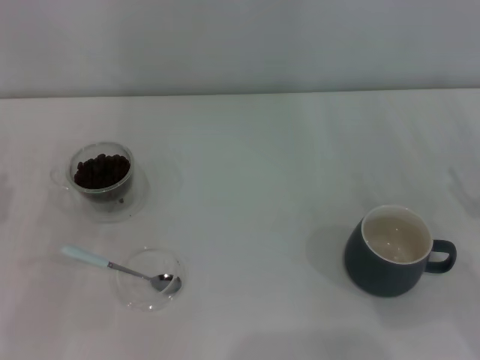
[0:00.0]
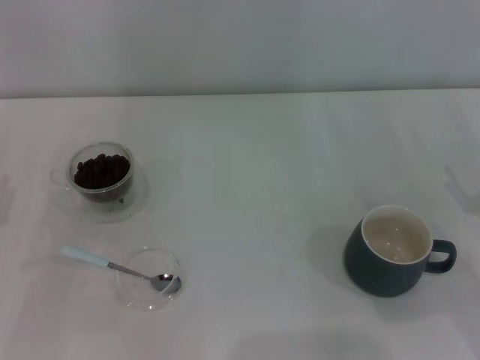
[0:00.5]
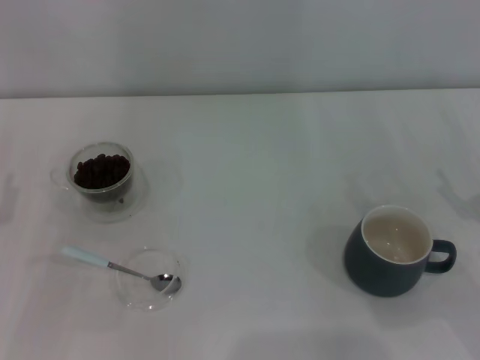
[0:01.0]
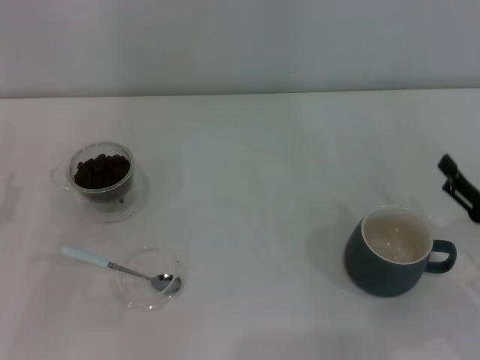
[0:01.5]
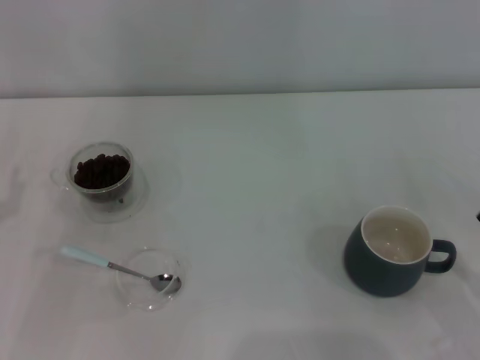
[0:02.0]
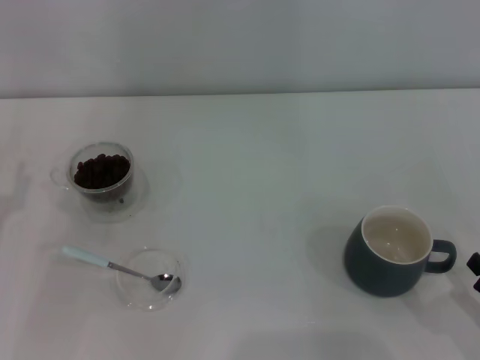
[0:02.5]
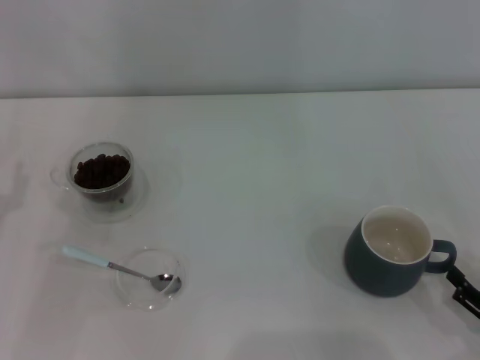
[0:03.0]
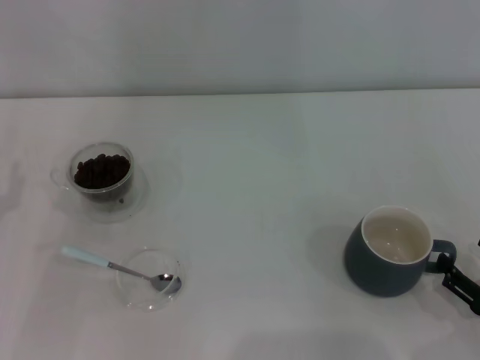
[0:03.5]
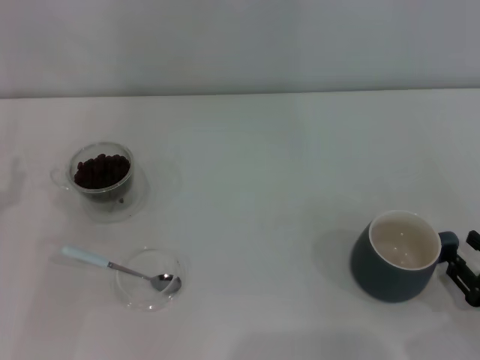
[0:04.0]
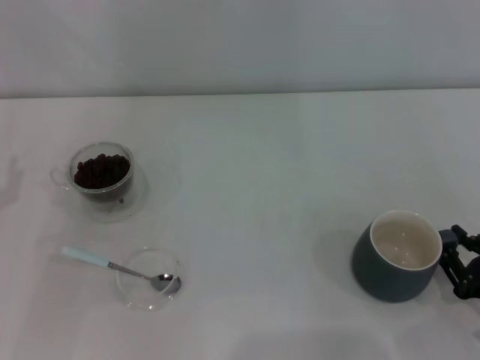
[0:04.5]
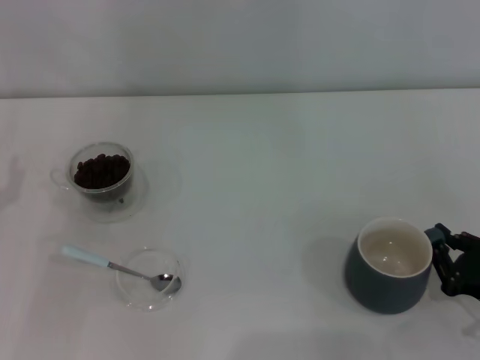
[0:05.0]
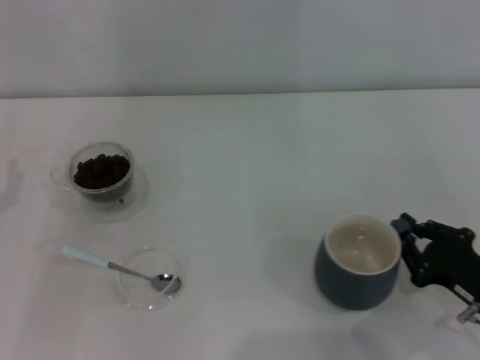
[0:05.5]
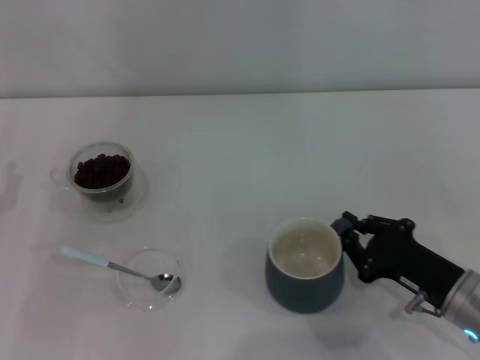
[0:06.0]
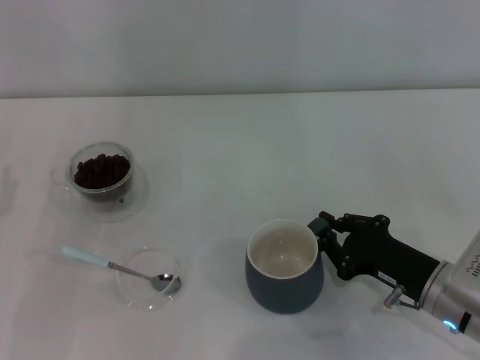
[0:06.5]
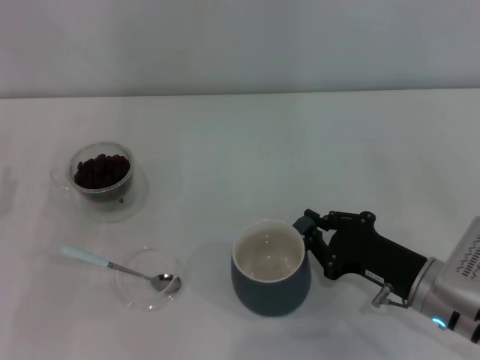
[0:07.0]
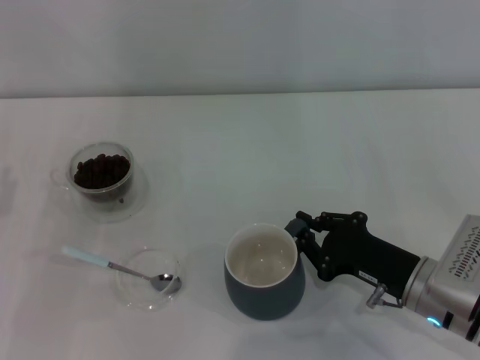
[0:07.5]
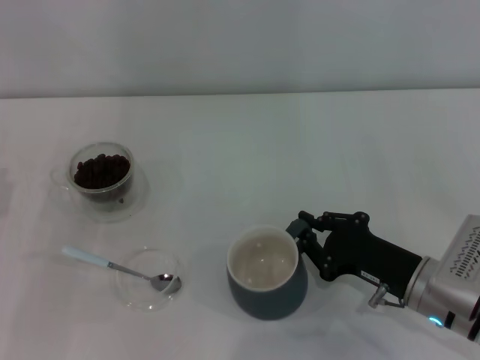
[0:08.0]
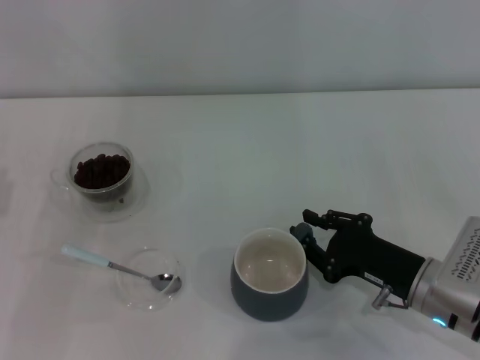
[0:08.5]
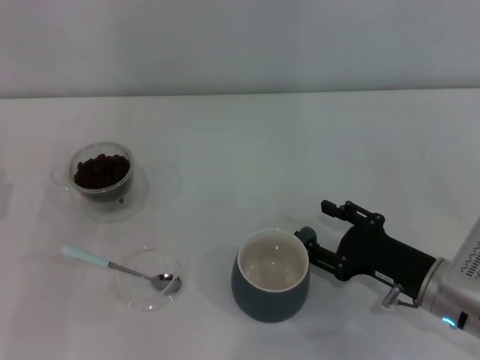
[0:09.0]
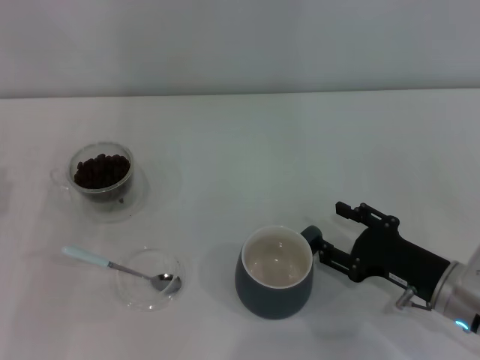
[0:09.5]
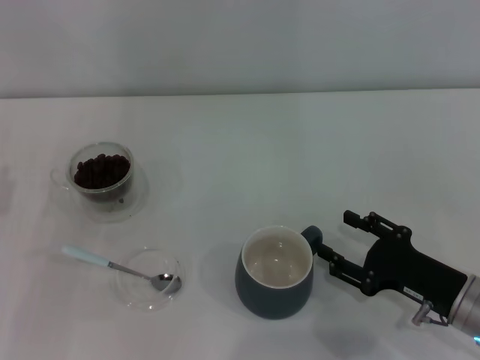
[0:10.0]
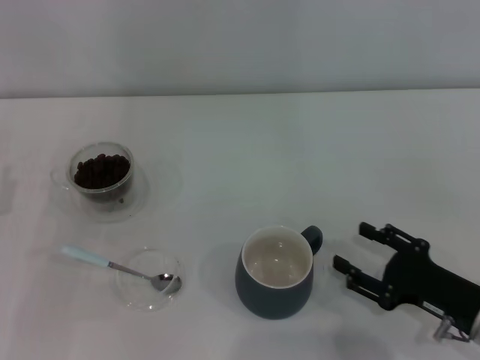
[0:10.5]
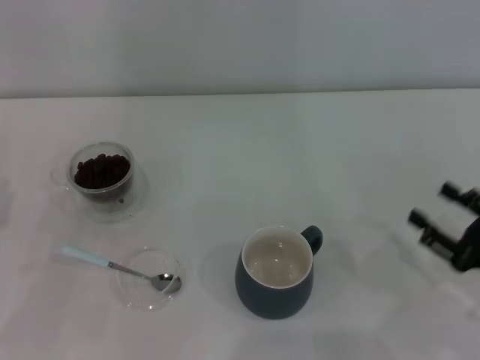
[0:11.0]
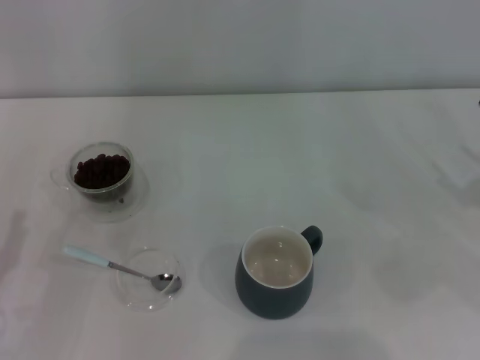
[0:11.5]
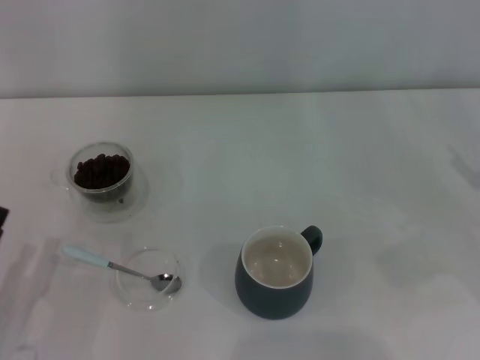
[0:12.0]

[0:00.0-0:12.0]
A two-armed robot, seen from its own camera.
Task of the whole recording: Use a blue spoon to take out the coffee beans from the glass and pour them into the gray cup.
Step, 0:00.0 to 0:10.5: Move the cup to the center of view with the left gripper.
0:02.0 to 0:04.0: There are only small adjustments of the grippers.
0:04.0 to 0:06.0: The right gripper is displaced to the left and forward by approximately 10 cm, and closes up.
0:06.0 to 0:08.0: The grippers stay close to where they were, moving slightly.
0:08.0 to 0:10.0: The right gripper opens up.
0:10.0 to 0:12.0: The left gripper heads backward and downward, covering about 10 cm. The right gripper is displaced to the right and upward by some 15 cm.

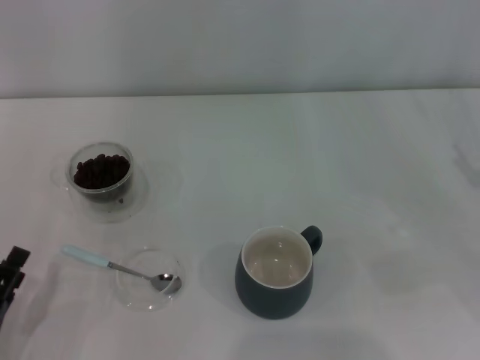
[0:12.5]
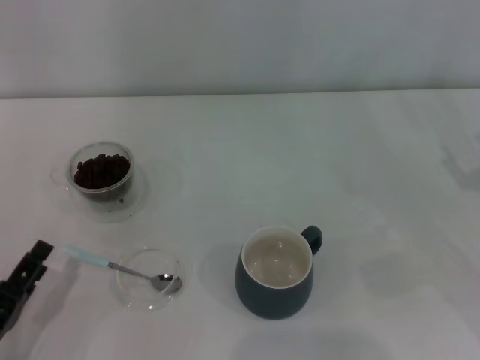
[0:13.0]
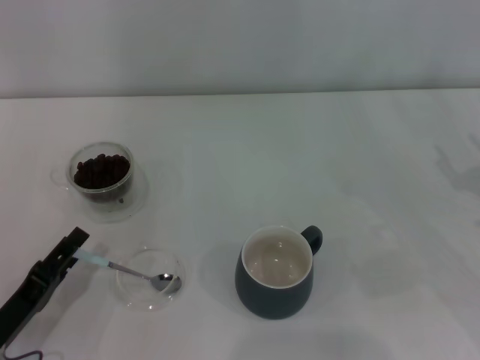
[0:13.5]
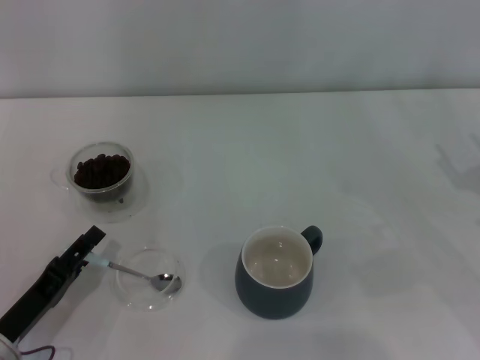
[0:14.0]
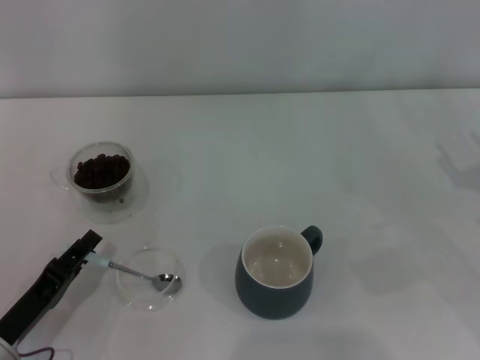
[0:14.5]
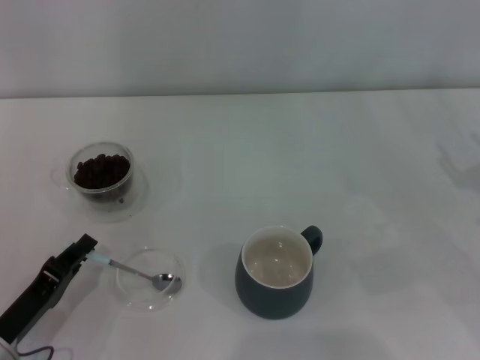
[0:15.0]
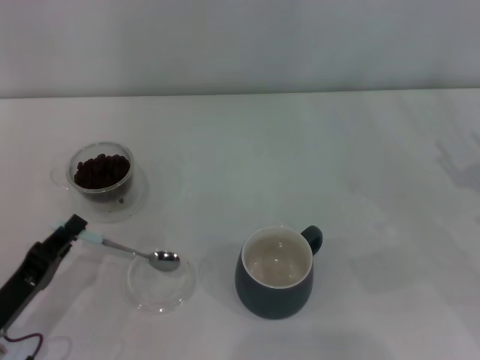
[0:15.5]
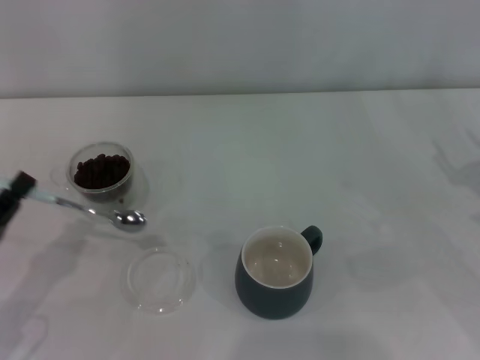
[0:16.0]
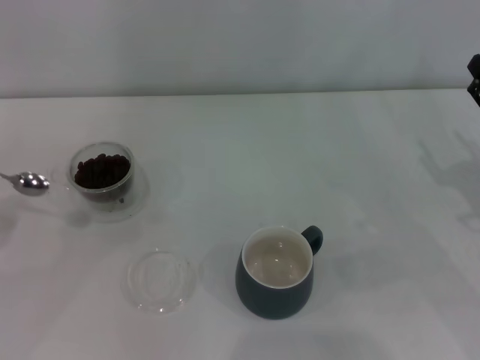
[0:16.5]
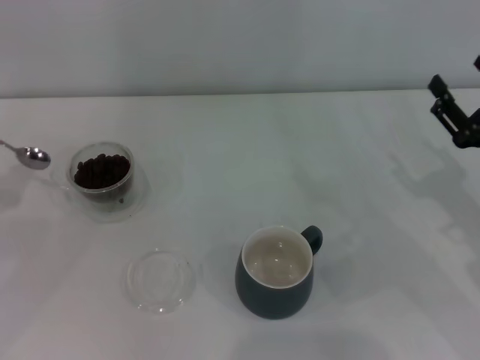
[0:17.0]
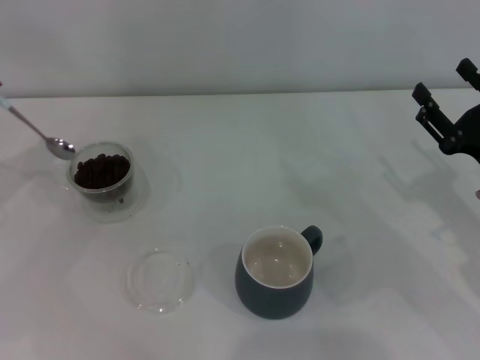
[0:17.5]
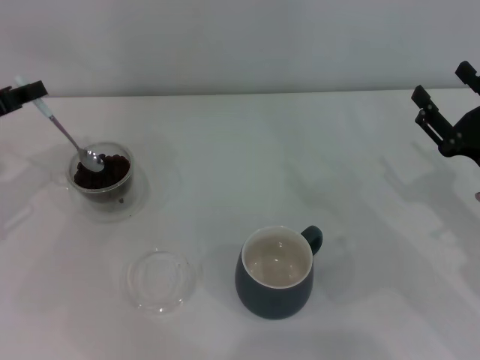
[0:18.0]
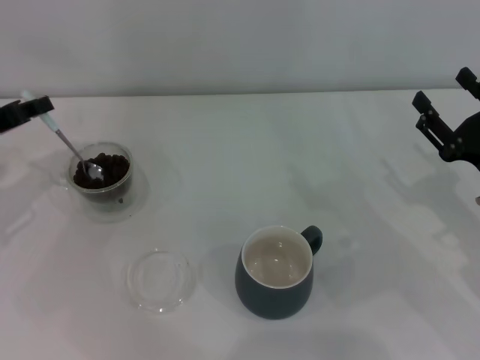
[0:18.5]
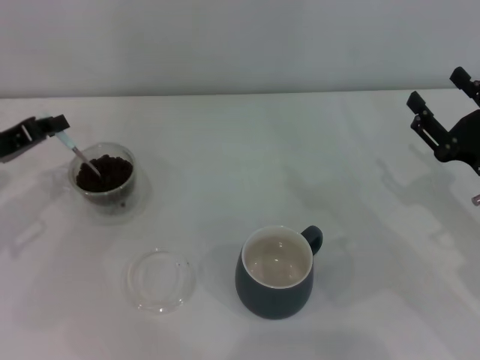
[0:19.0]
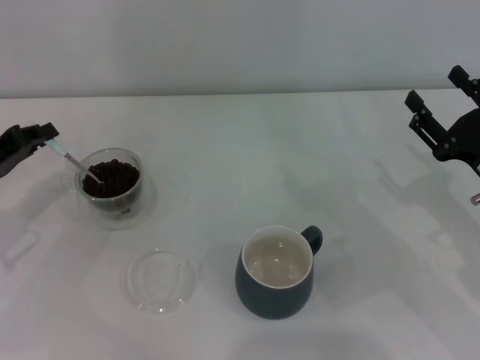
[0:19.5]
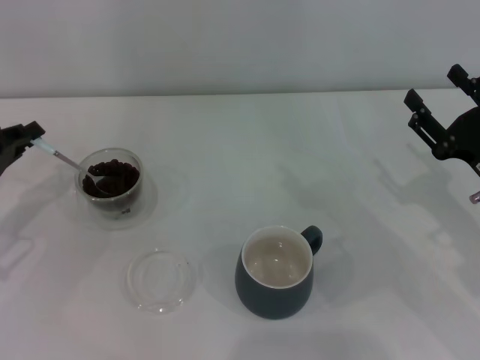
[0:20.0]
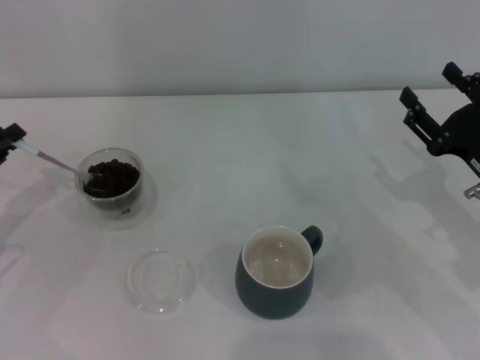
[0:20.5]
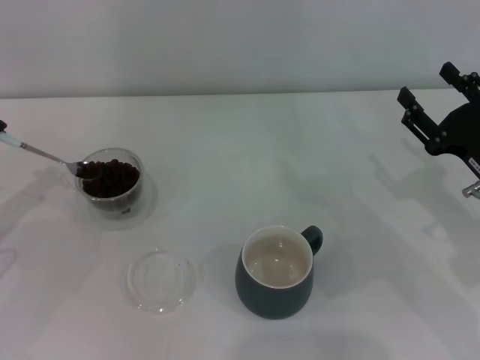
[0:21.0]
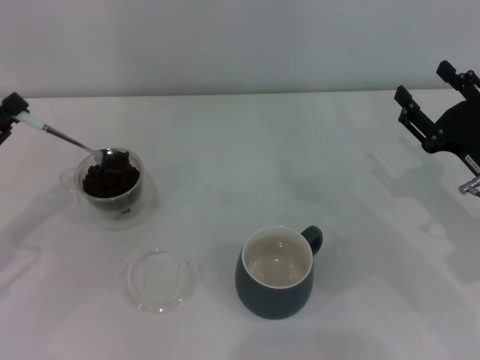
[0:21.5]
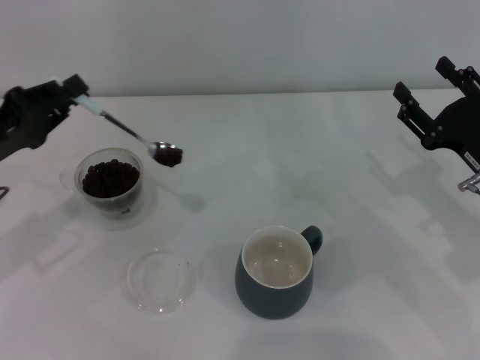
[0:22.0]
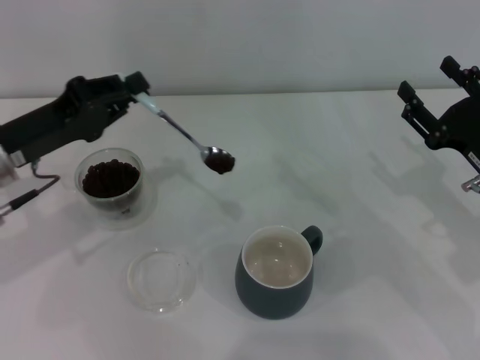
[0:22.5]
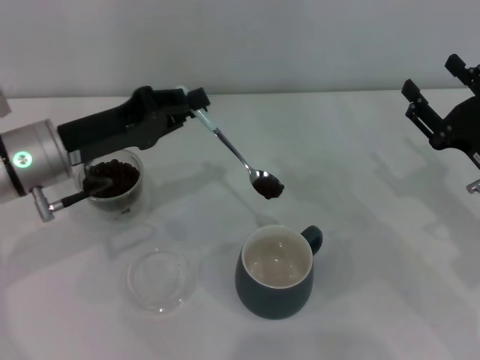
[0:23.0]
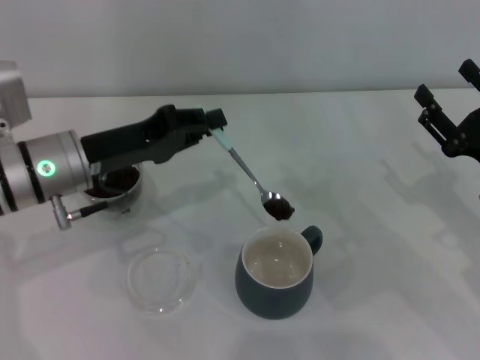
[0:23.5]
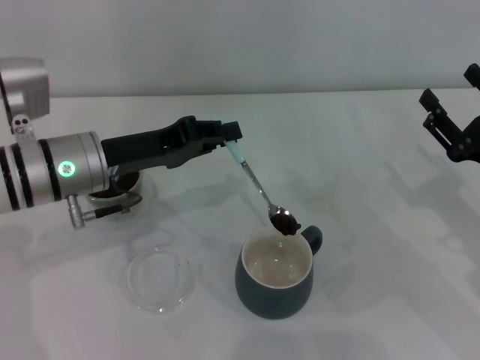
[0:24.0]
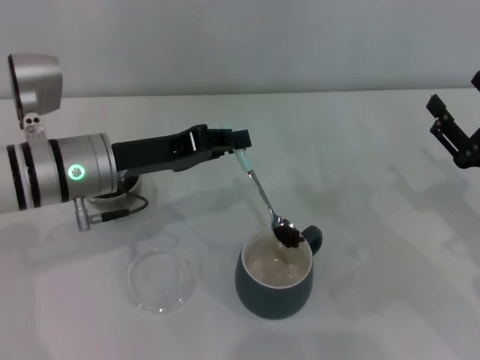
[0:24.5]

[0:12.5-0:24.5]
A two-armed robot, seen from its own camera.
Task of the whole recording: Use a blue spoon to take out the coffee beans from the glass and pour them into the gray cup.
Step, 0:12.5 to 0:15.5: Pick up the spoon with the right gripper.
0:12.5 to 0:14.5: The left gripper travels forward by roughly 5 cm.
0:14.5 to 0:16.5: The left gripper goes some 15 cm to the left and upward, and closes.
0:16.5 to 0:18.5: The left gripper is displaced forward and to the right by about 15 cm.
0:18.5 to 0:20.5: The left gripper moves backward, roughly 5 cm.
0:20.5 to 0:22.5: The left gripper is displaced to the right by approximately 10 cm.
0:22.5 to 0:24.5: The left gripper heads to the right, covering about 10 cm.

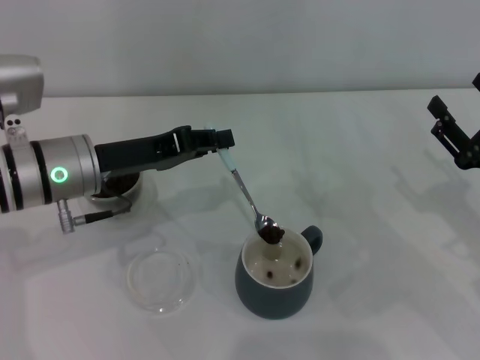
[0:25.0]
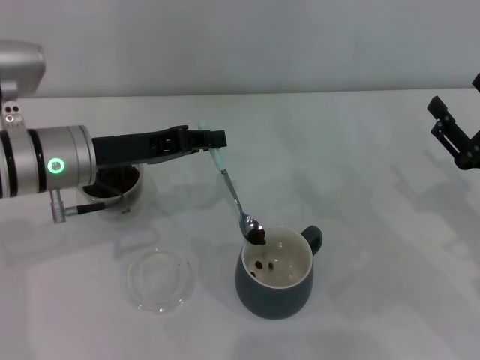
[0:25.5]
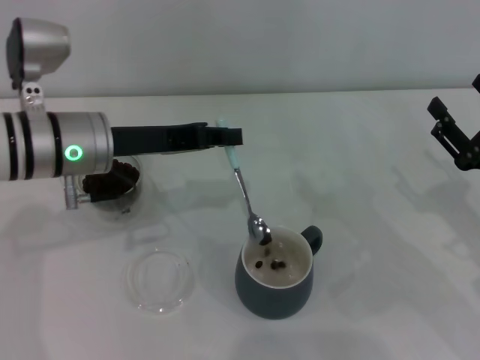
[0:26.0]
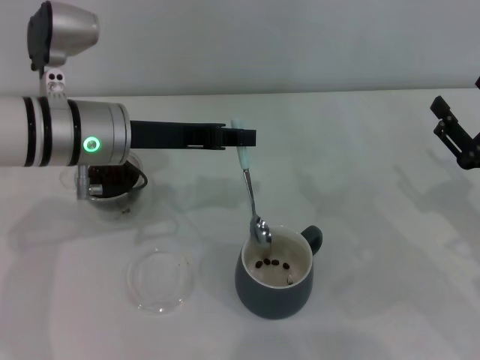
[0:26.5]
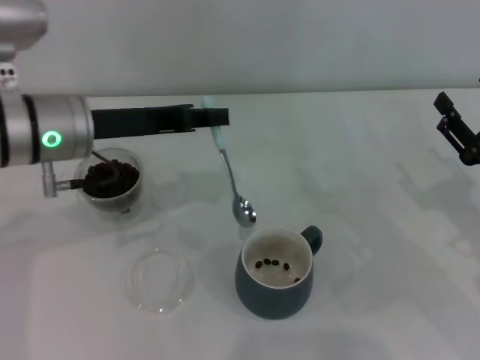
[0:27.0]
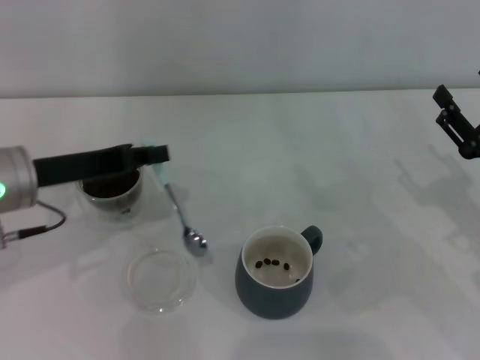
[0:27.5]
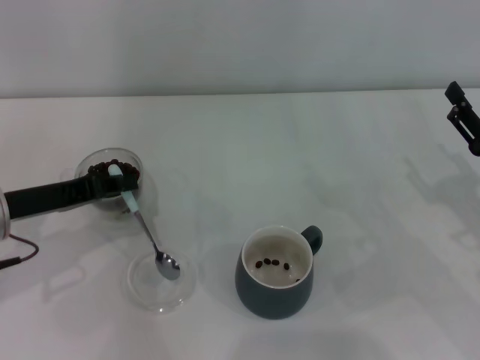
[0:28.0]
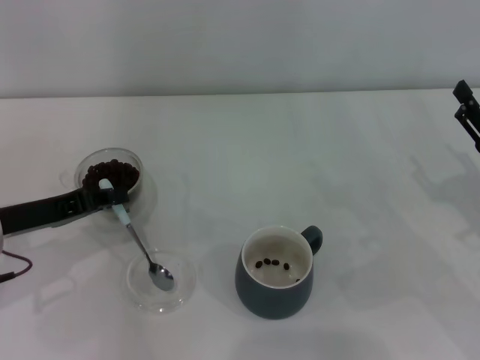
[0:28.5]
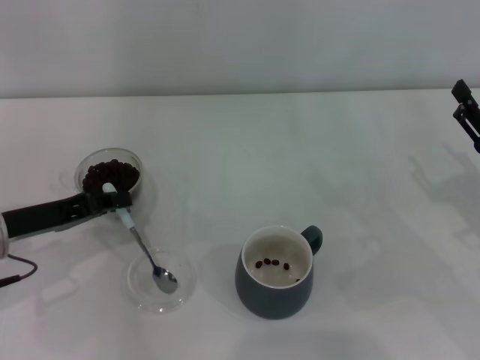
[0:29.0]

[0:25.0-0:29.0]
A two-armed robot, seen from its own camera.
Task of the whole recording: Use a blue spoon to take out the coffee beans from the glass and pour them into the gray cup.
0:25.0 to 0:27.0: The grippers make only small movements.
0:27.0 to 0:29.0: The left gripper heads to the left, downward and backward, covering roughly 15 cm.
